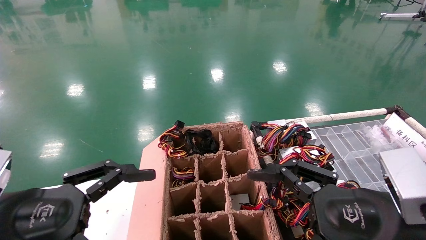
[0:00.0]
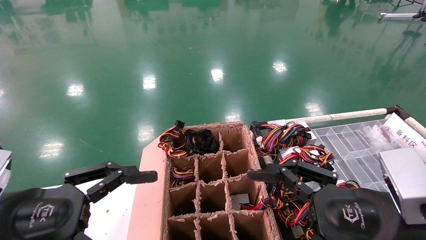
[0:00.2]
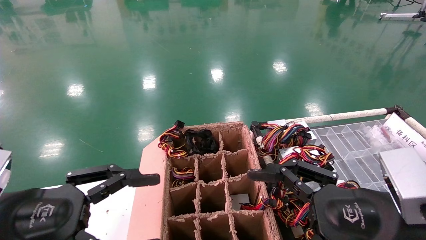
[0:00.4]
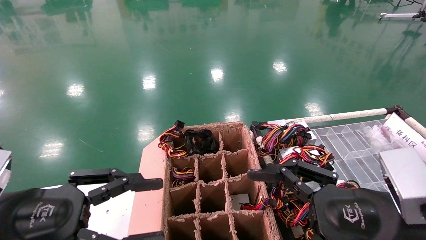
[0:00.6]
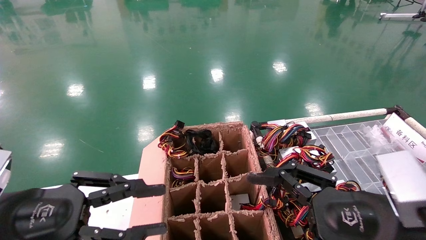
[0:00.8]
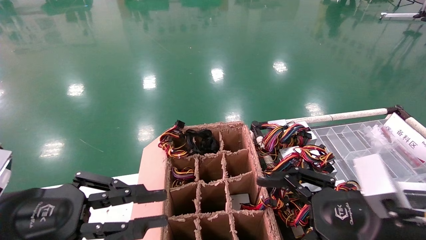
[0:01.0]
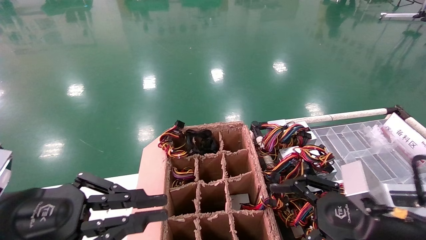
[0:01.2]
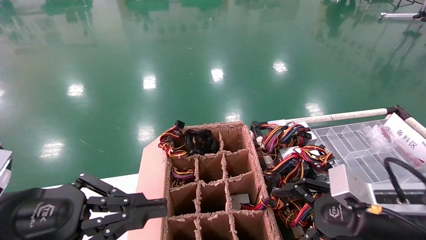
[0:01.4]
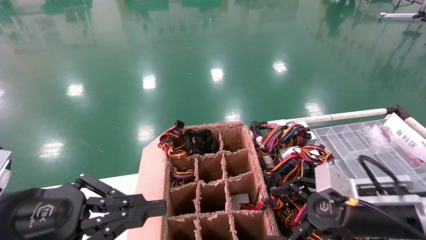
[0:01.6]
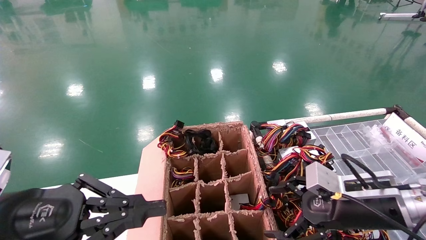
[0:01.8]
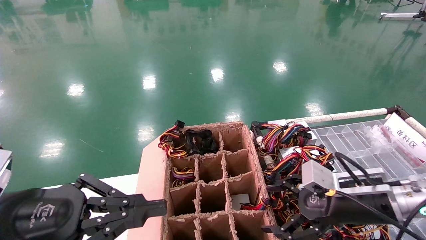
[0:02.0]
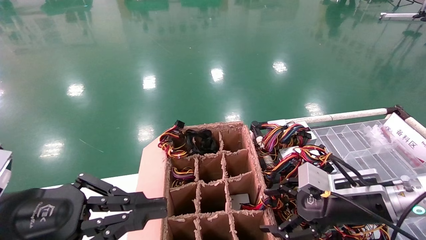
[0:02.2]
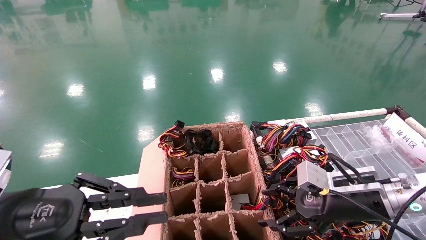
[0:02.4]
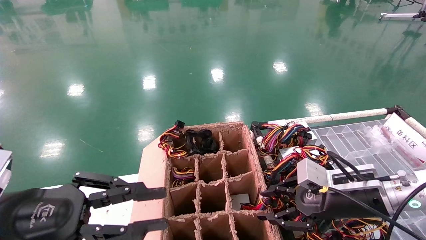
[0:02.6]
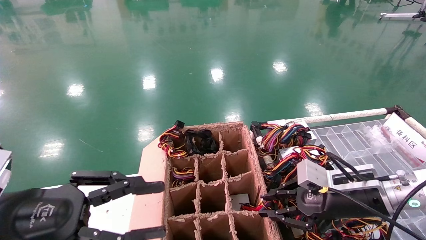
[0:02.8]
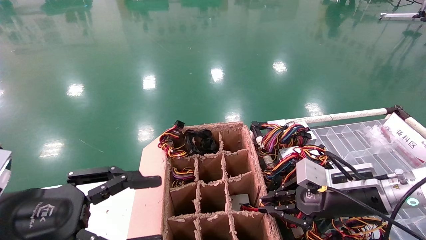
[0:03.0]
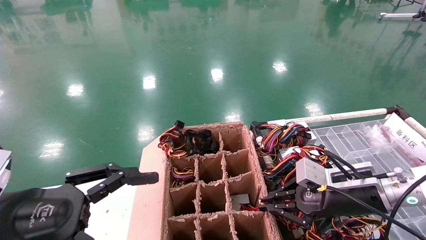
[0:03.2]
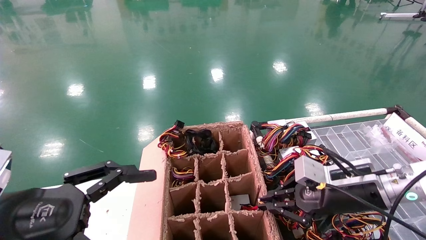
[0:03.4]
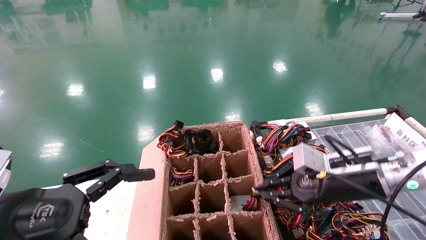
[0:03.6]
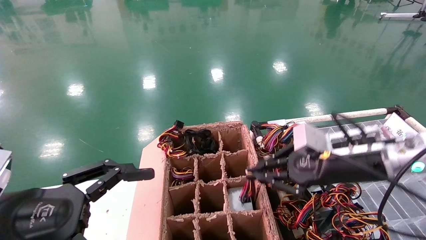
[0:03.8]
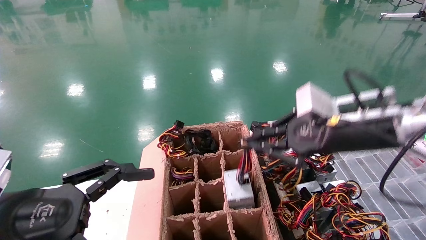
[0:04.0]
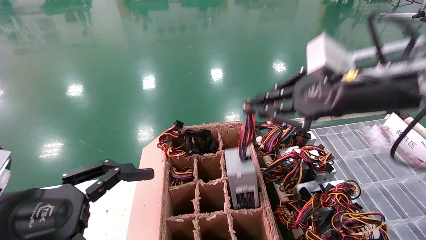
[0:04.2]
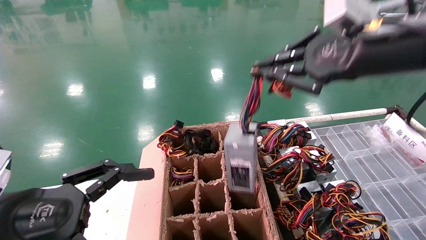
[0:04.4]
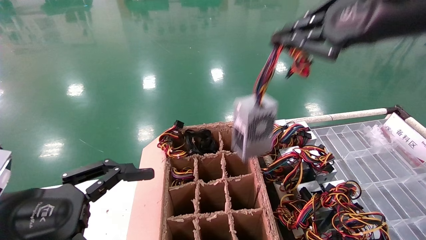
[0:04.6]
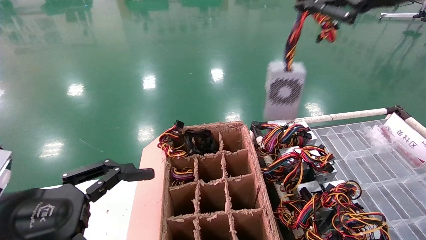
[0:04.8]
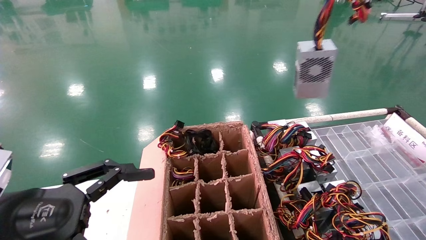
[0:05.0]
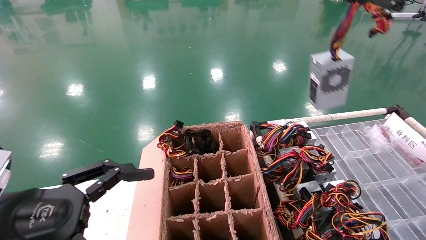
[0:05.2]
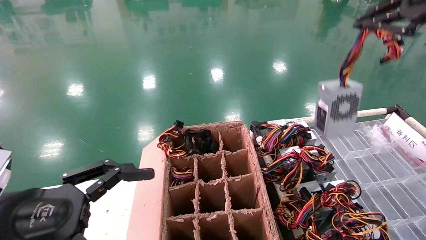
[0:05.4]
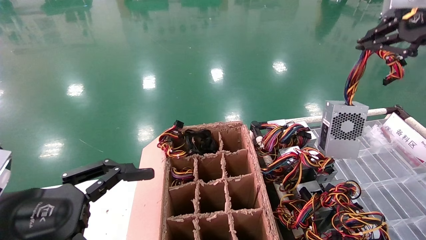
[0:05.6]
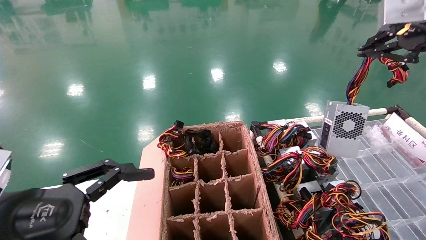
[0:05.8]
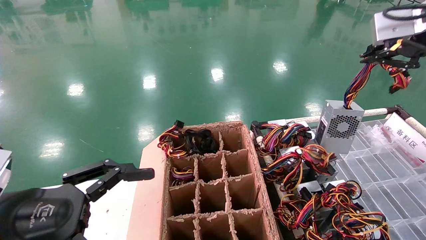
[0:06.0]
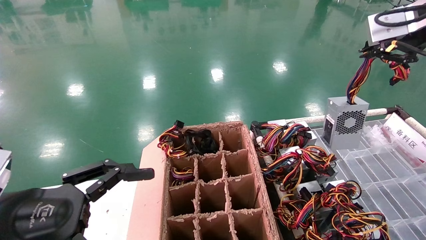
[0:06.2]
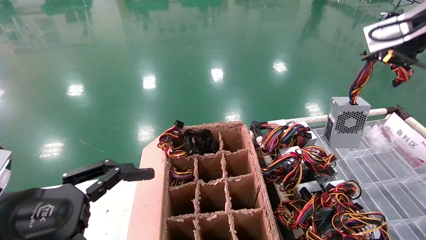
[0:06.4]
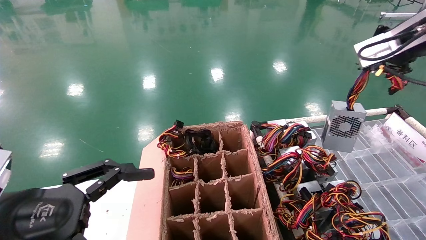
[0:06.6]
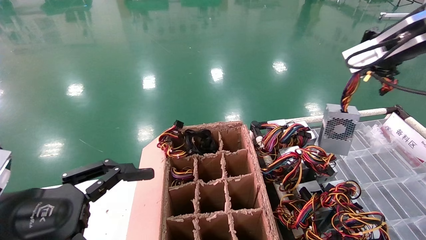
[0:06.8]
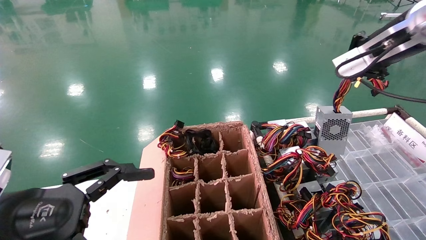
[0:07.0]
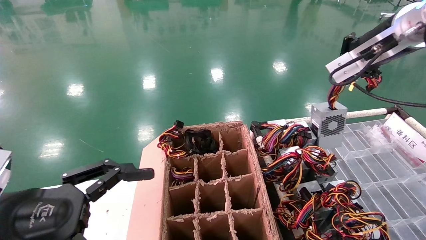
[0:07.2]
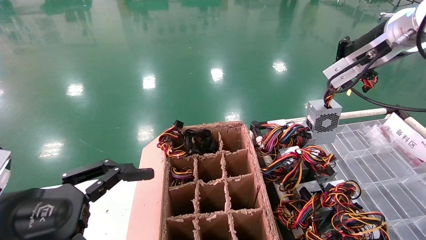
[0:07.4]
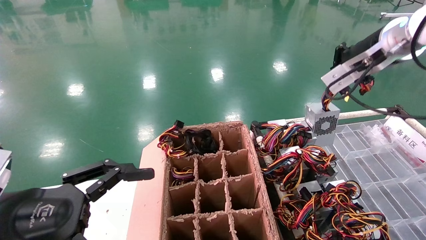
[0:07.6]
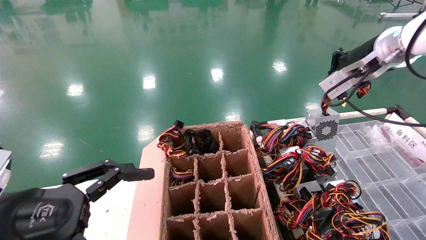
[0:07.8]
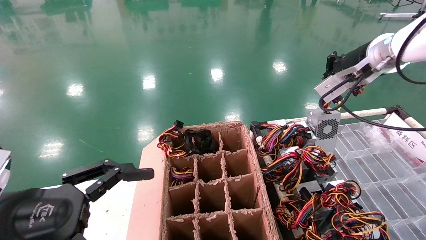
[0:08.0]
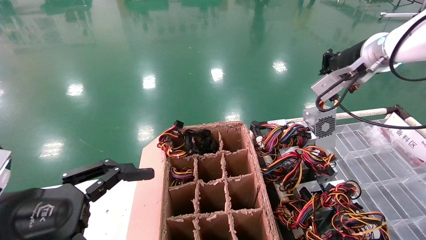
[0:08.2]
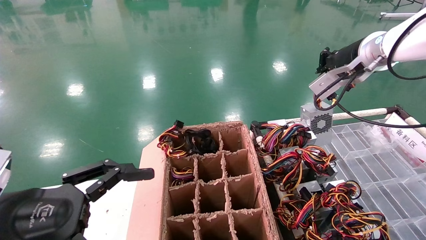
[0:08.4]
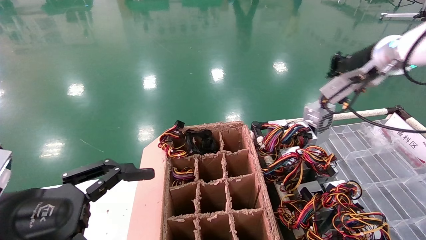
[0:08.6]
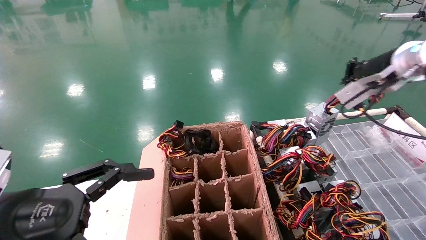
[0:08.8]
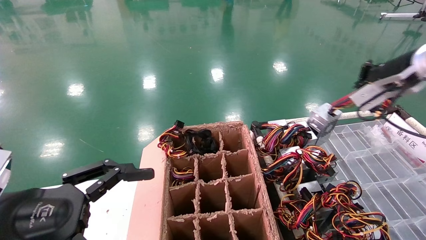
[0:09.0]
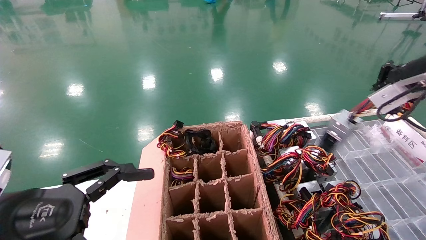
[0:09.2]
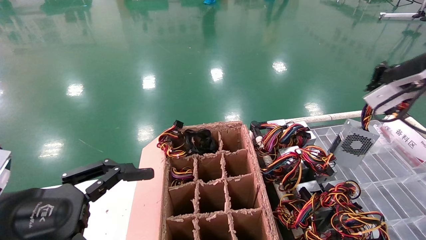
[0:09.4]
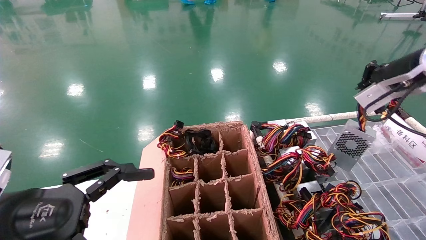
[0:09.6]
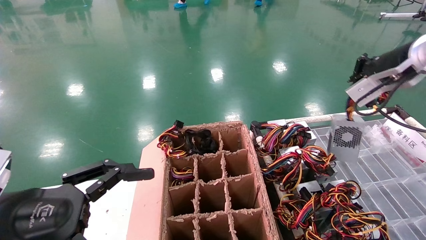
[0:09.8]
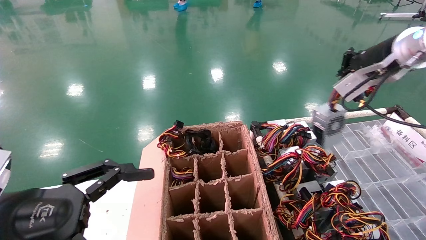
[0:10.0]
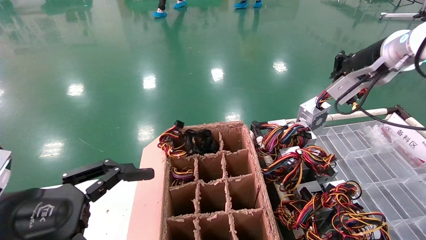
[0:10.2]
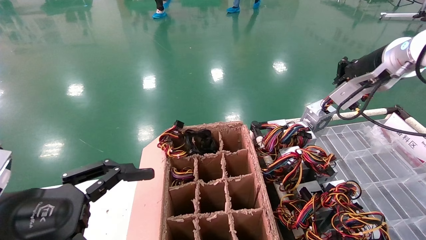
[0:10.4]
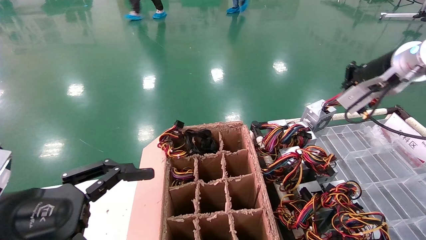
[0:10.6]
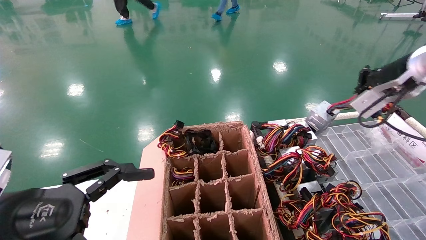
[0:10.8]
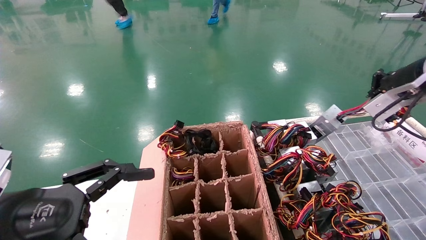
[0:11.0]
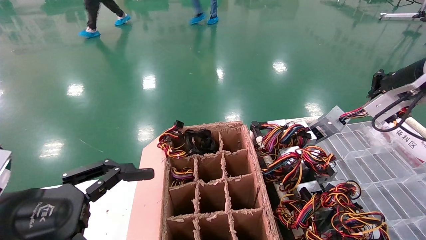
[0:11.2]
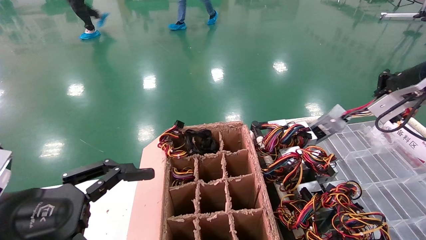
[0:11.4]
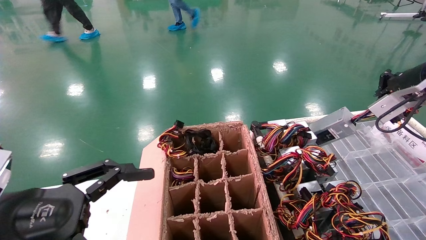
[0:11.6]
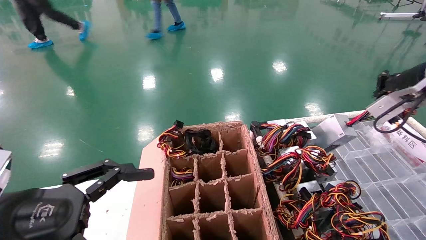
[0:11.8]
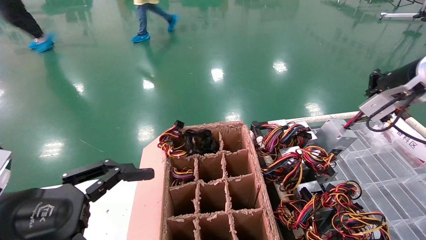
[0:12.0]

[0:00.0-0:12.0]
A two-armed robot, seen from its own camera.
Step, 0:01.4 to 0:03.6: Grab and lift the power supply from the large box.
0:00.0 to 0:01.6: The left gripper closes; the right gripper travels forward by roughly 10 cm.
0:01.6 to 0:03.0: The left gripper opens. Meanwhile the right gripper heads forward, covering roughly 5 cm, and closes its fingers.
0:03.0 to 0:04.4: The left gripper opens its fingers, while the right gripper heads upward, covering approximately 25 cm.
0:04.4 to 0:06.0: The right gripper travels to the right and upward by approximately 10 cm.
0:06.0 to 0:07.6: The right gripper shifts approximately 10 cm forward and downward.
0:07.6 to 0:09.0: The right gripper moves to the right, approximately 5 cm.
0:09.0 to 0:10.4: There are only small adjustments of the grippers.
0:10.4 to 0:12.0: The right gripper moves roughly 5 cm.

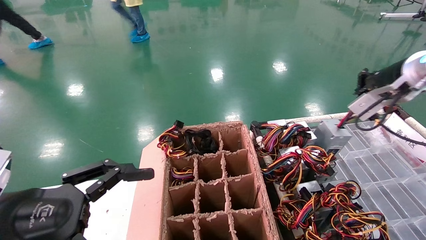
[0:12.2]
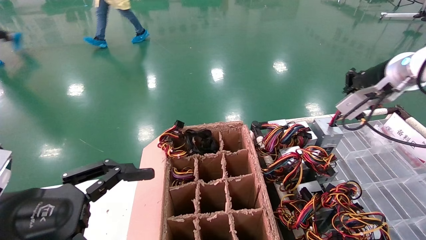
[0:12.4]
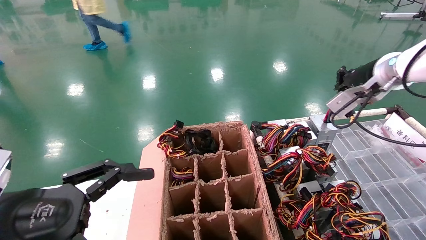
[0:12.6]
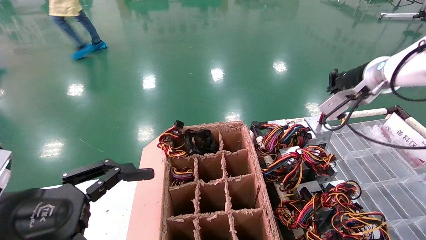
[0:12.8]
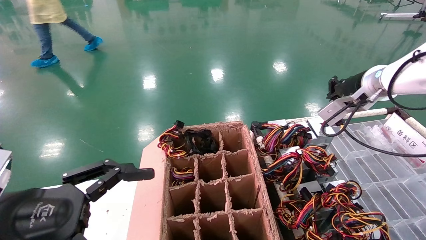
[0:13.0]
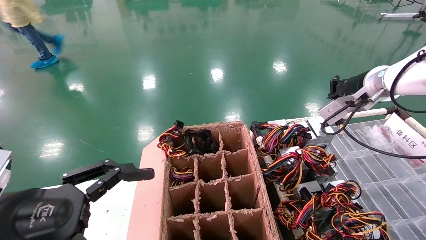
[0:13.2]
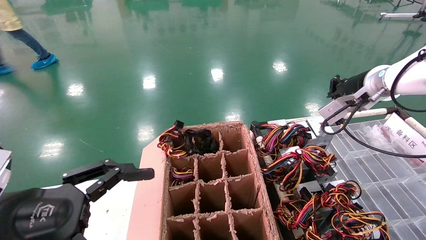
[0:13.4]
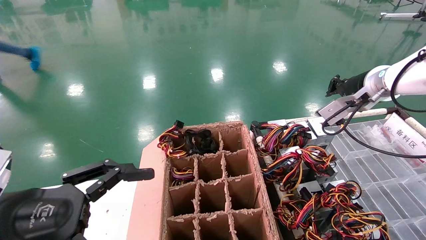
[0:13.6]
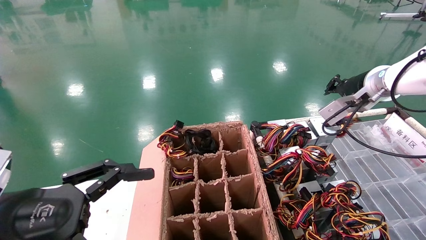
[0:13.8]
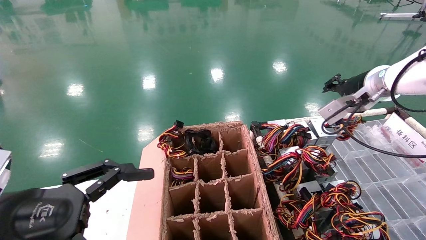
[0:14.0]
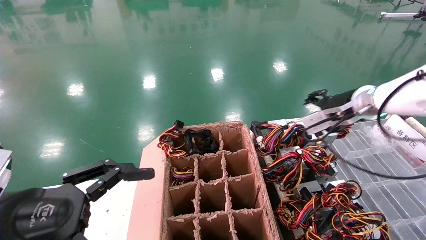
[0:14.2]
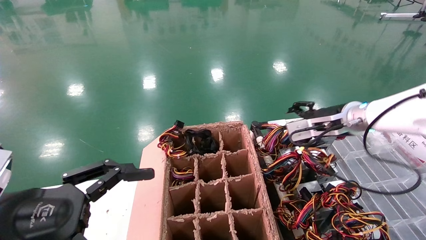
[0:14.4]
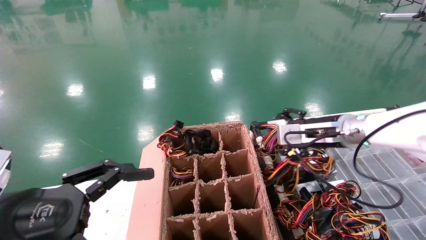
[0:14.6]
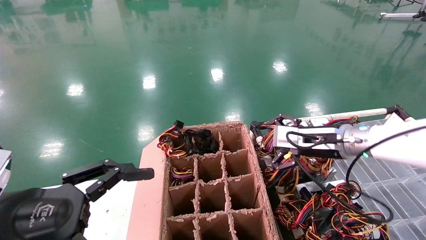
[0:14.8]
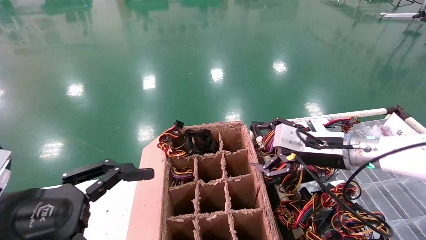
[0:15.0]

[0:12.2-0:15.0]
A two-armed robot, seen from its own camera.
0:12.2 to 0:13.6: The right gripper shifts by approximately 5 cm.
0:13.6 to 0:15.0: The right gripper shifts some 15 cm downward and to the left, and opens its fingers.

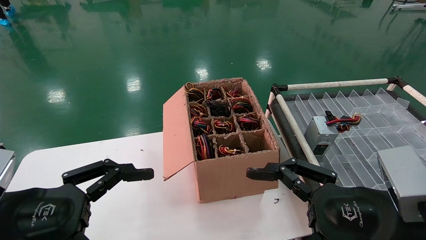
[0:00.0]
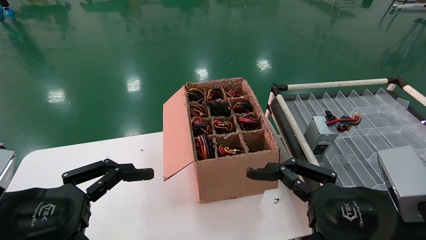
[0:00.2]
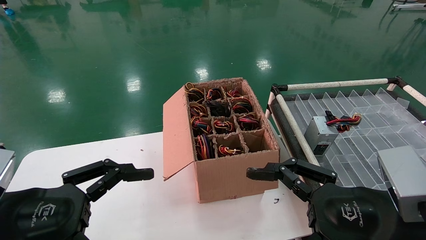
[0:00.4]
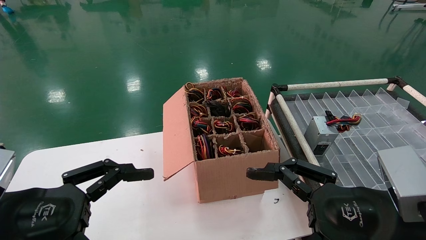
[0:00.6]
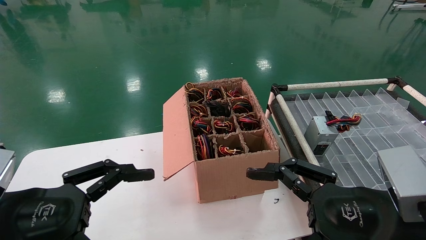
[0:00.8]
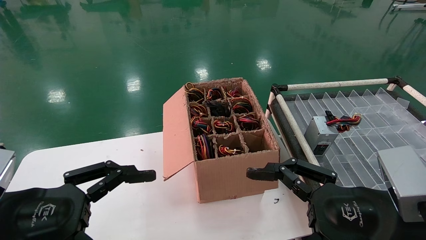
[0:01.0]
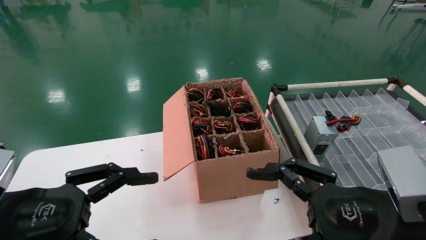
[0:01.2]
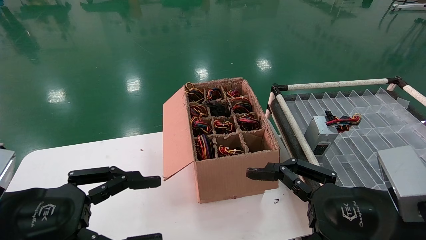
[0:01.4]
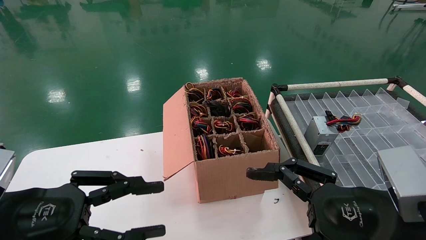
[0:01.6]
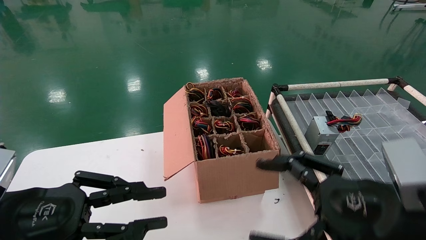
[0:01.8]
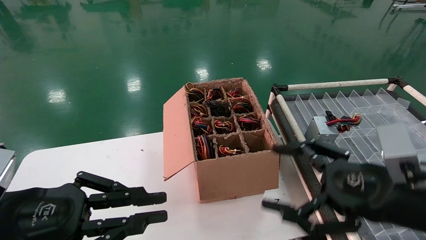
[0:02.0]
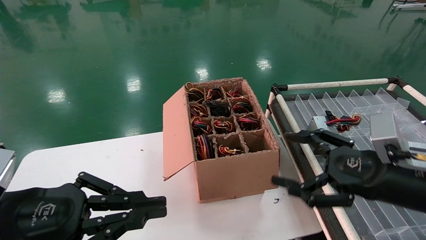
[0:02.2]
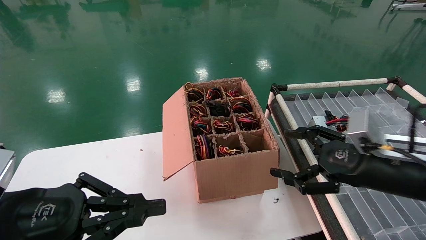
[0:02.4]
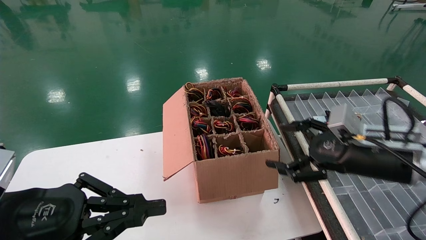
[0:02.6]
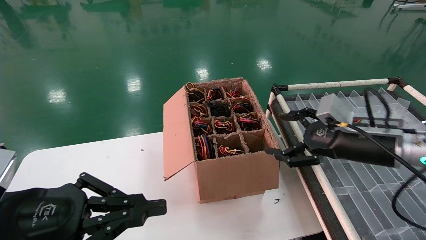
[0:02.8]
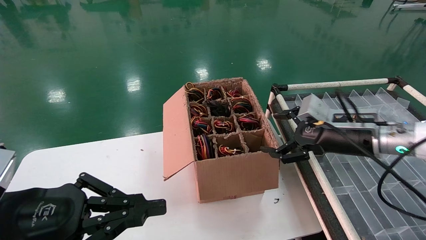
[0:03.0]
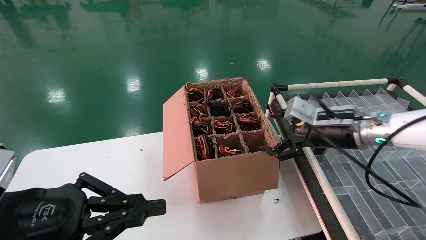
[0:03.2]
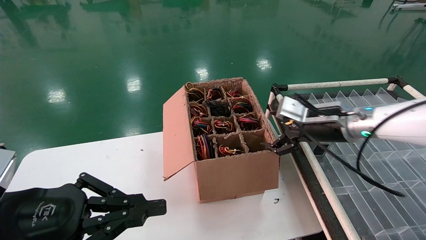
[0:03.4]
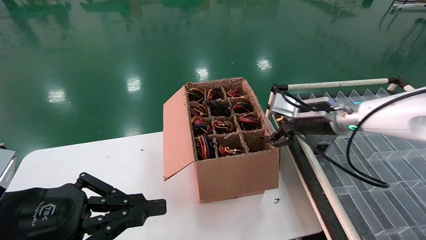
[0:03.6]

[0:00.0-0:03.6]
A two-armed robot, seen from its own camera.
0:00.0 to 0:01.8: The left gripper closes.
0:01.8 to 0:03.6: The right gripper heads forward, covering roughly 25 cm. Meanwhile the left gripper closes its fingers.
